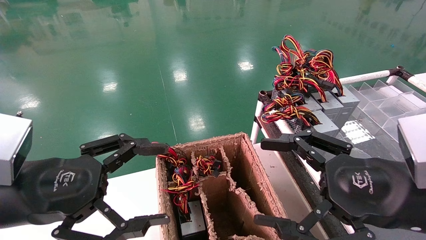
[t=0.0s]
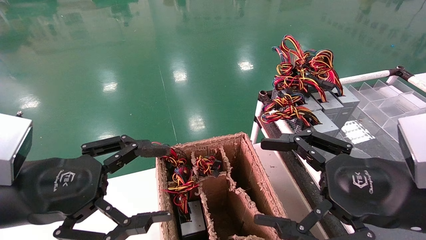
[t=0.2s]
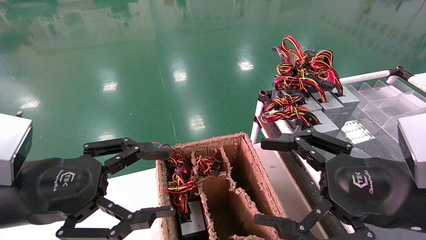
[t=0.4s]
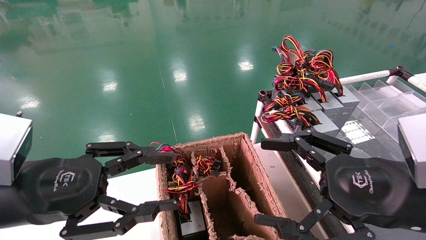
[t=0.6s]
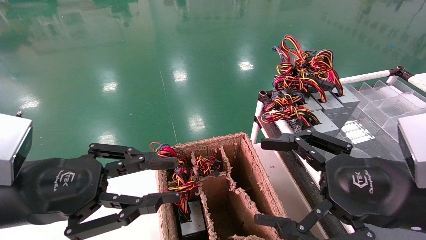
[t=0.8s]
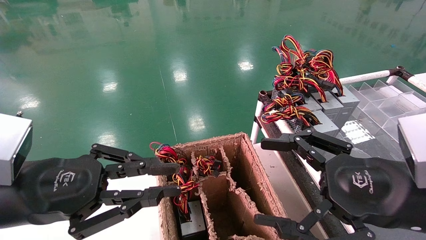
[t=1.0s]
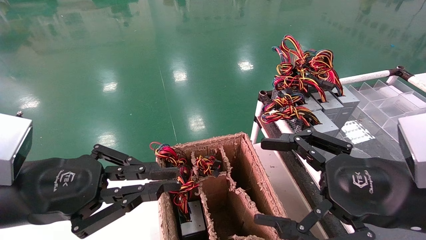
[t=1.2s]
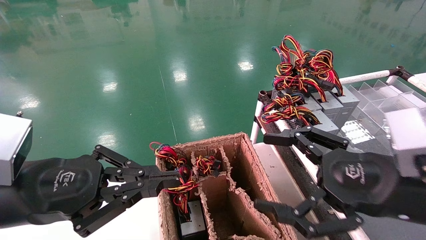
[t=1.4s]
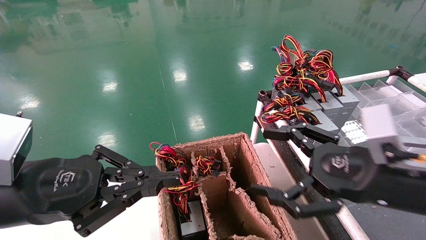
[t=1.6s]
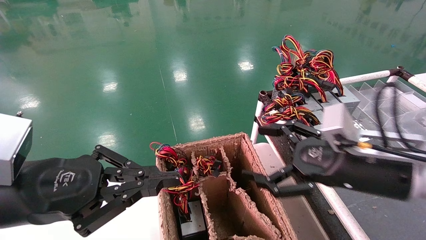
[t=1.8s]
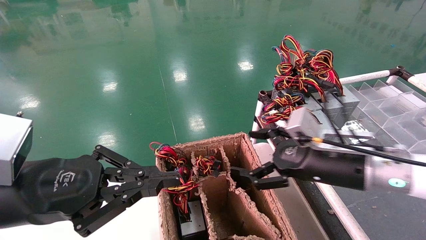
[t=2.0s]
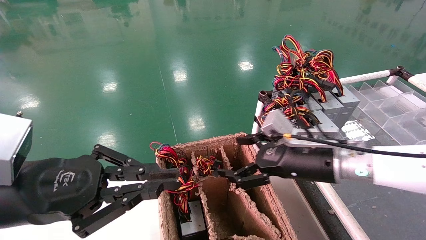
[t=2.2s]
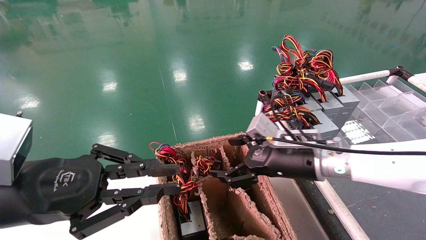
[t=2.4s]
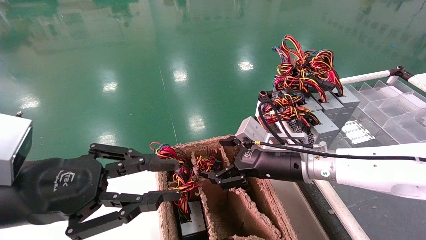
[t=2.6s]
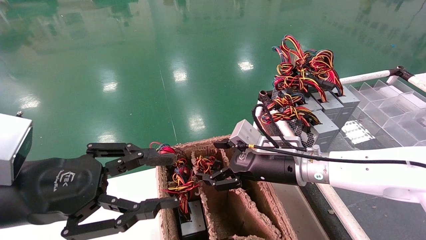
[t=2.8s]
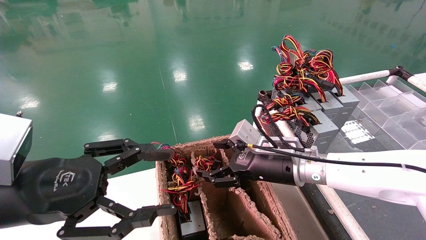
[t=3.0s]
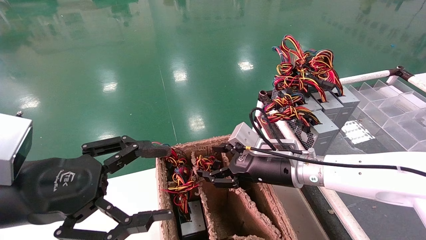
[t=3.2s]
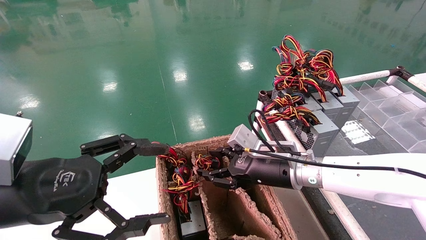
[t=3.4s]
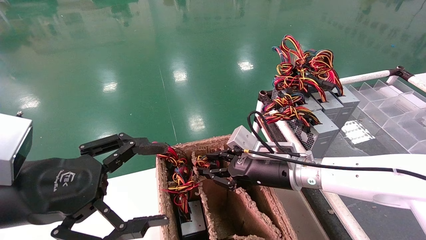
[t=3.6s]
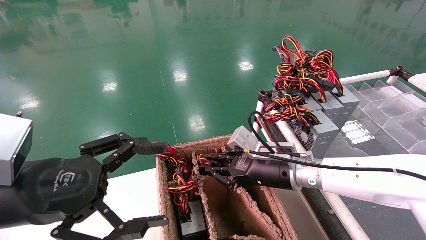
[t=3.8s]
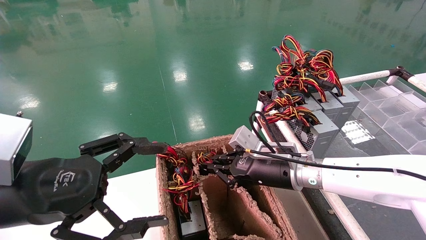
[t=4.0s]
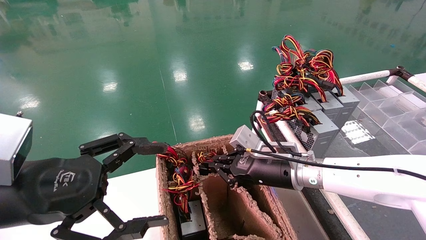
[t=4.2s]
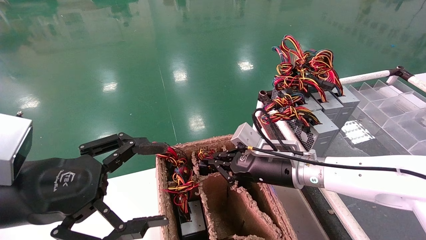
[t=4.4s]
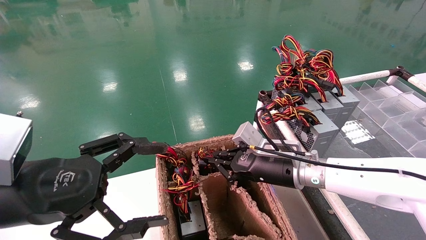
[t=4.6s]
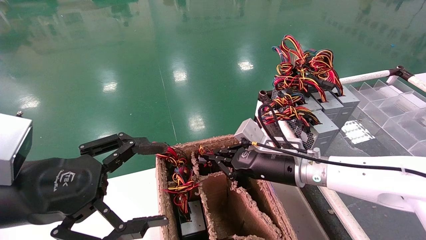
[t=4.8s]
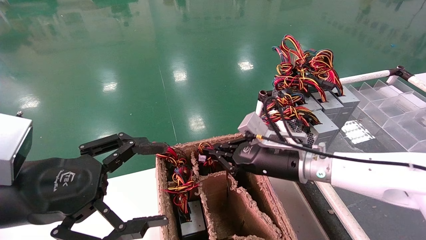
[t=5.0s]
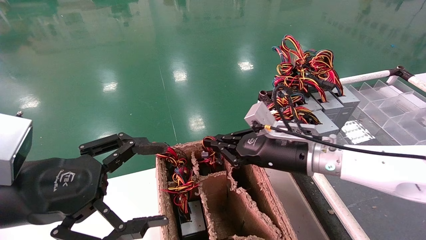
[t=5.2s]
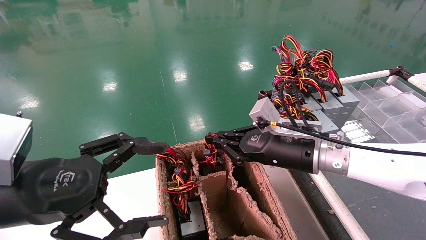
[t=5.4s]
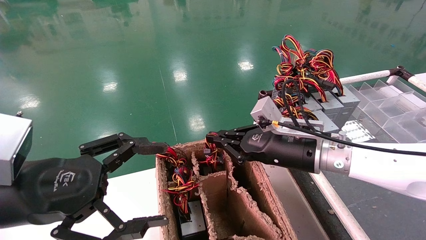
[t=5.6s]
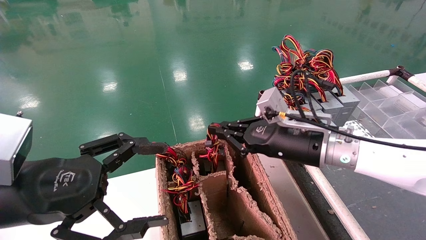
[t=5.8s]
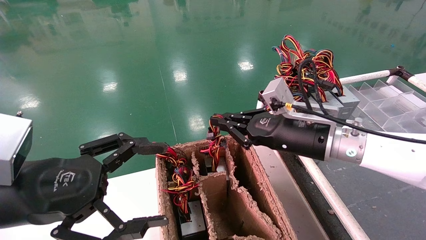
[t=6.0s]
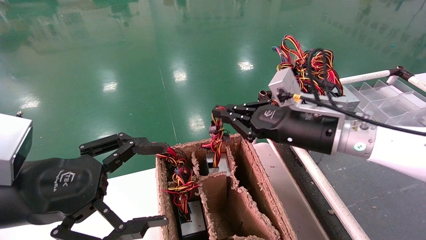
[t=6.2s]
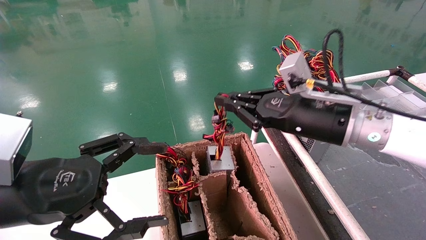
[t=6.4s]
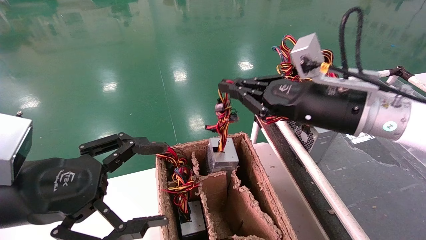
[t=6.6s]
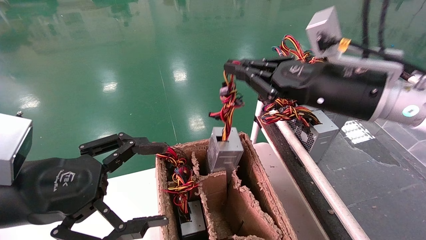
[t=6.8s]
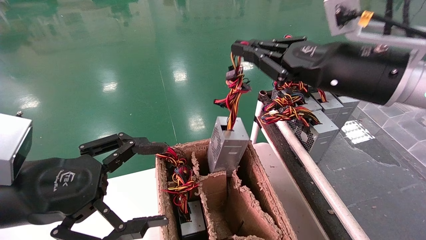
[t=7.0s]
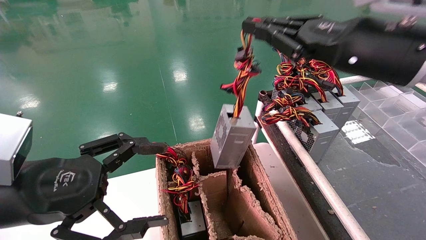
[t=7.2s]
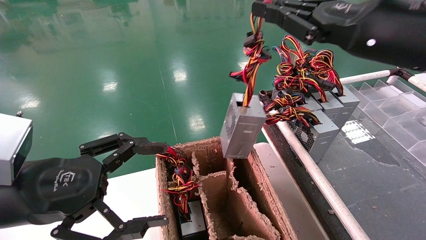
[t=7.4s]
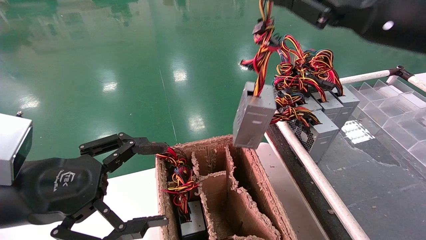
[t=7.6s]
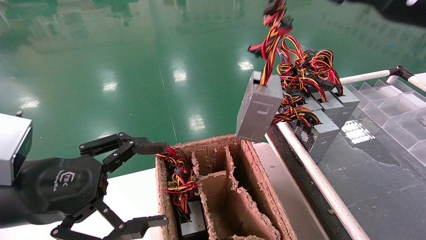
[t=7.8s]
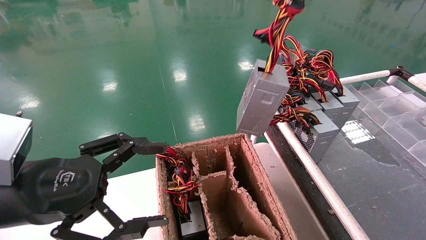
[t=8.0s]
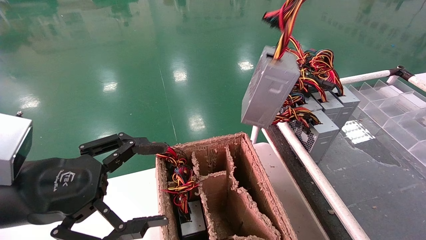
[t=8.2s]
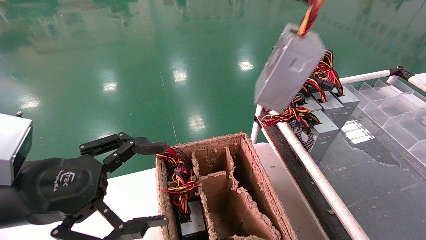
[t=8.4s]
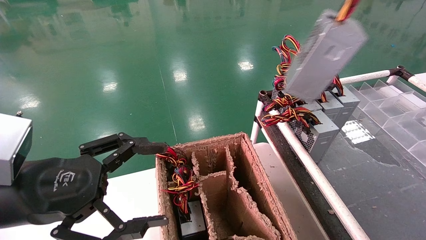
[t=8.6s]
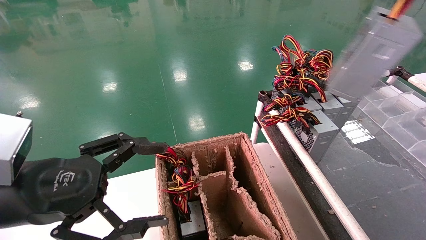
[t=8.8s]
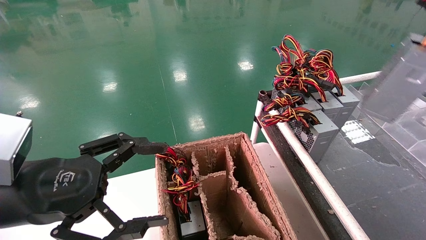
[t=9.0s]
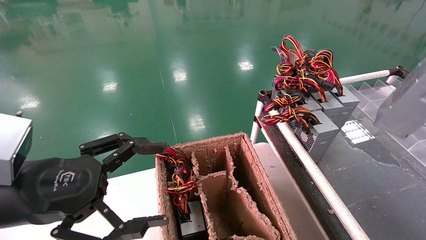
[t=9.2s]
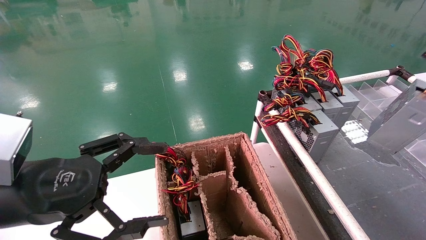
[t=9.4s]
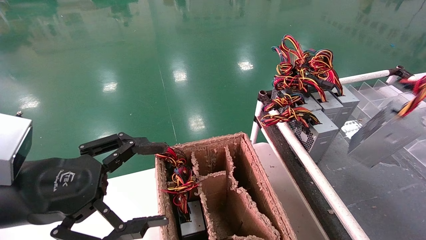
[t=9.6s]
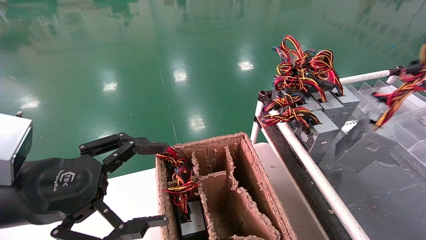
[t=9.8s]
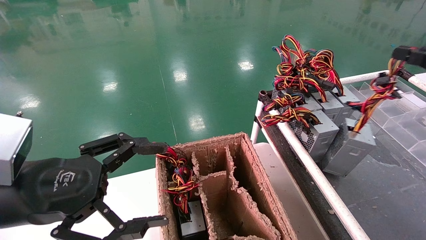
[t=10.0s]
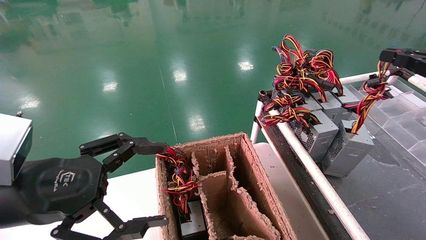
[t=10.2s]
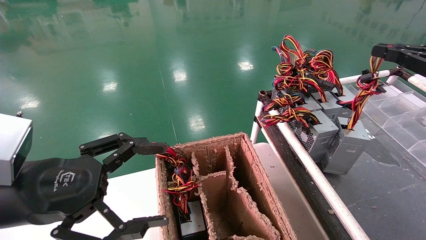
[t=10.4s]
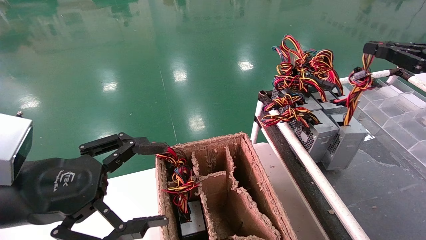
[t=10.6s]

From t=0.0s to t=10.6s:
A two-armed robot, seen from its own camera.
Step, from t=1.4s to t=4.4s: Grab and lift the power supply from the large box.
From t=0.0s to t=1.6s: The left gripper closes.
From t=1.6s to t=3.0s: The left gripper opens its fingers; the right gripper heads forward, to the left and downward, covering approximately 20 cm.
From t=3.0s to t=4.6s: The right gripper closes up. Meanwhile the left gripper opens up.
From t=4.6s to t=6.0s: The right gripper is displaced upward by some 10 cm.
From t=6.0s to t=7.6s: The right gripper is displaced upward, to the right and backward by roughly 20 cm.
From t=7.6s to t=9.0s: The right gripper travels to the right and backward by roughly 25 cm.
From t=9.0s to t=10.6s: The right gripper is displaced downward and forward by about 15 cm.

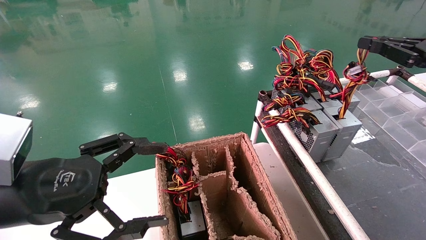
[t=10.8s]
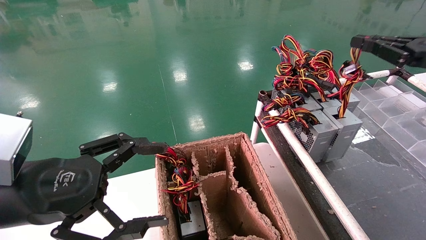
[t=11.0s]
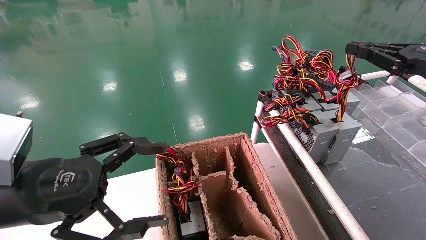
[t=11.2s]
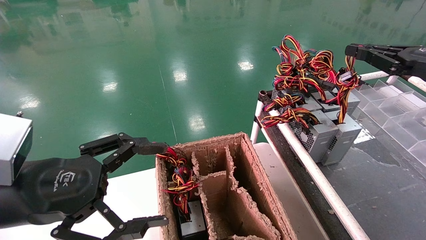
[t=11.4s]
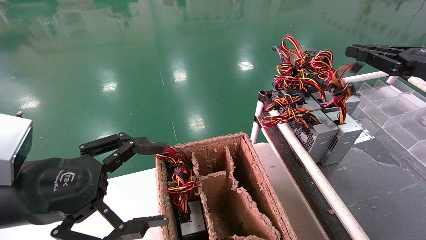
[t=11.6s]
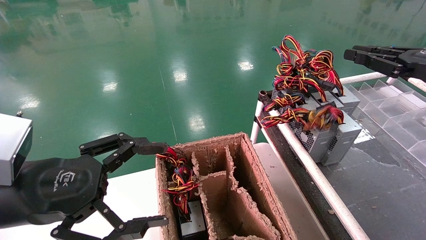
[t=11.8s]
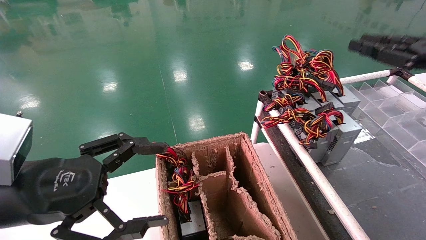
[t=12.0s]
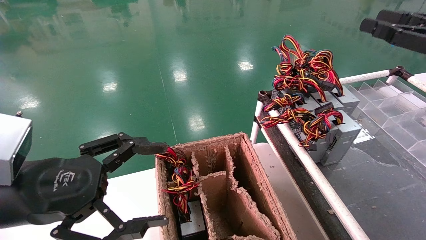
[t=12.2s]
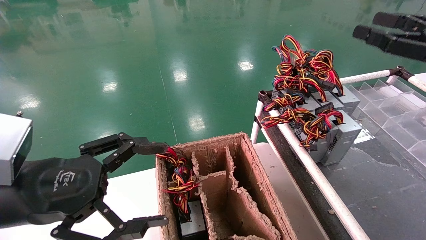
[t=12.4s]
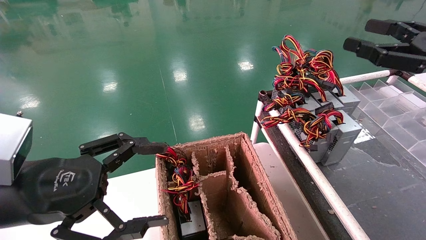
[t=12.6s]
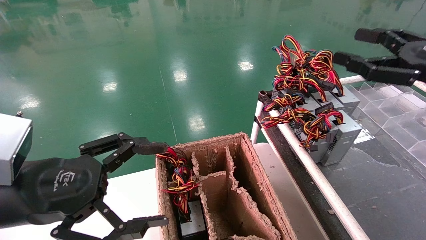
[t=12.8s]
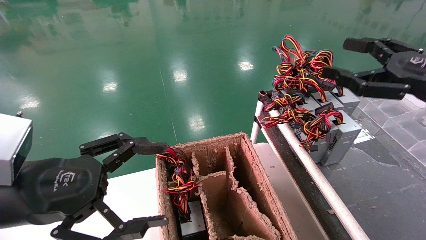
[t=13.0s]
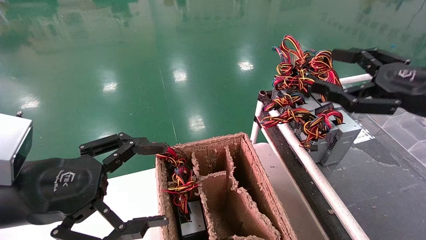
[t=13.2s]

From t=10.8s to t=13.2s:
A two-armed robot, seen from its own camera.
From t=10.8s to t=12.0s: The grippers stay close to where they were, moving slightly.
From t=12.0s to t=13.2s: The right gripper travels to the left by some 5 cm, and opens its fingers.
